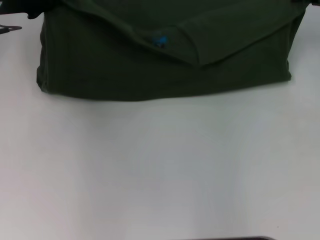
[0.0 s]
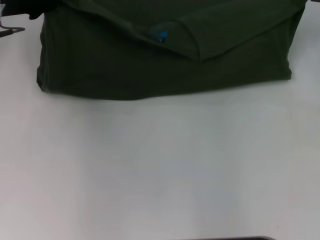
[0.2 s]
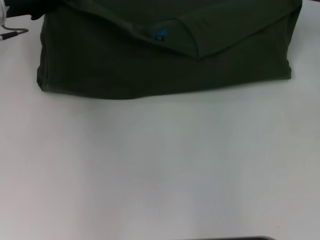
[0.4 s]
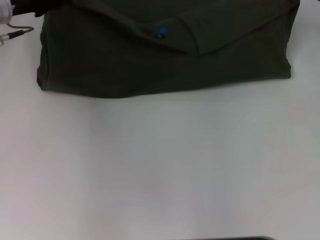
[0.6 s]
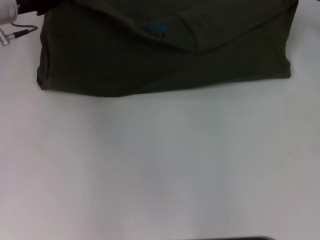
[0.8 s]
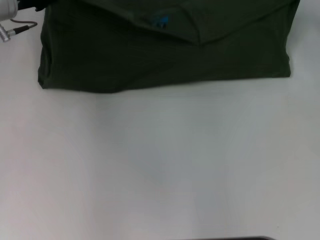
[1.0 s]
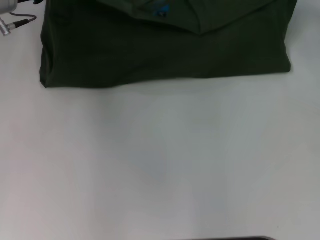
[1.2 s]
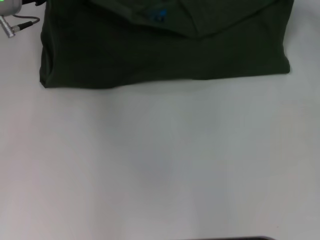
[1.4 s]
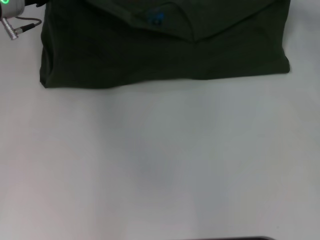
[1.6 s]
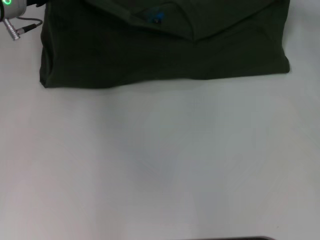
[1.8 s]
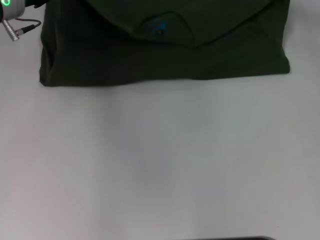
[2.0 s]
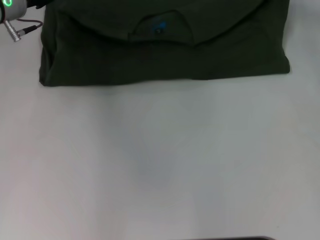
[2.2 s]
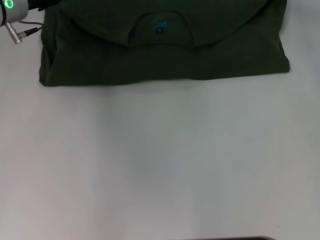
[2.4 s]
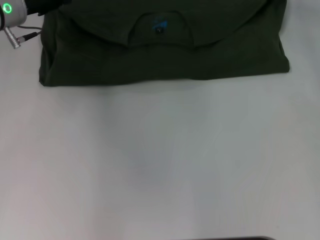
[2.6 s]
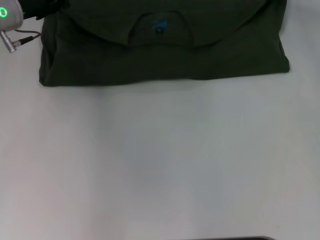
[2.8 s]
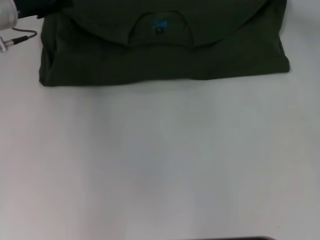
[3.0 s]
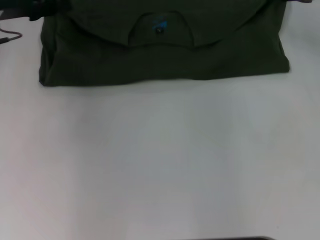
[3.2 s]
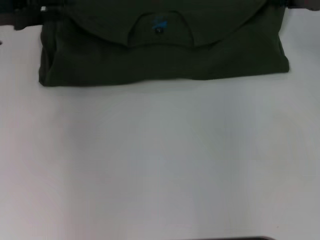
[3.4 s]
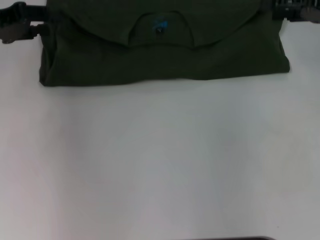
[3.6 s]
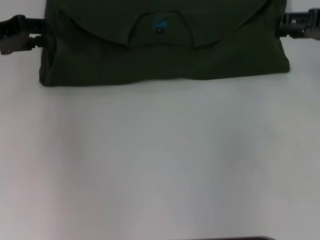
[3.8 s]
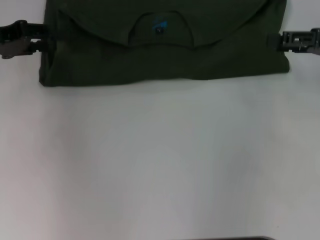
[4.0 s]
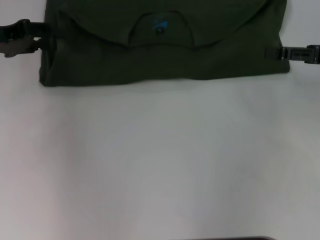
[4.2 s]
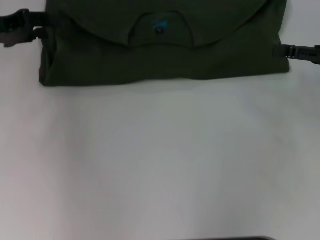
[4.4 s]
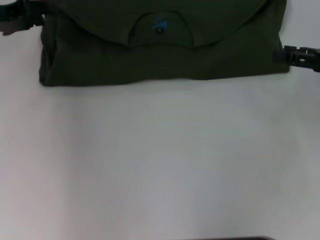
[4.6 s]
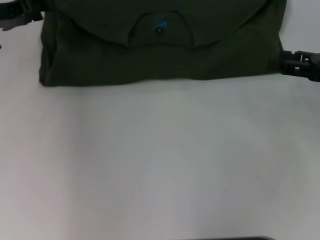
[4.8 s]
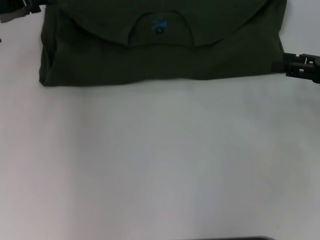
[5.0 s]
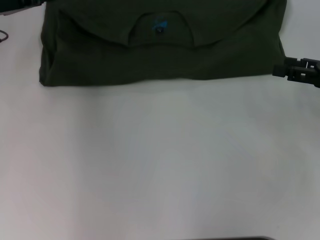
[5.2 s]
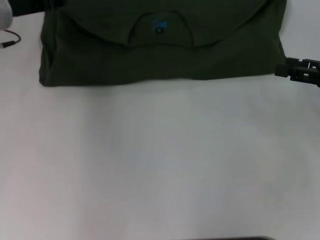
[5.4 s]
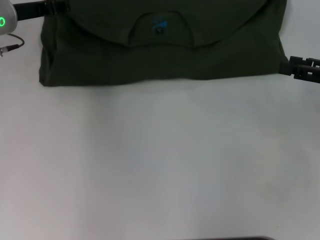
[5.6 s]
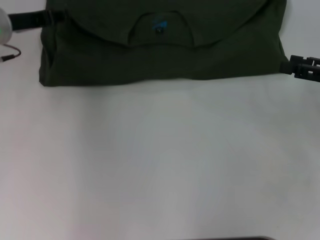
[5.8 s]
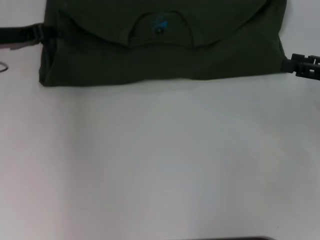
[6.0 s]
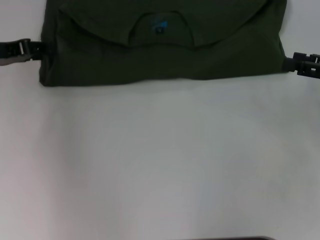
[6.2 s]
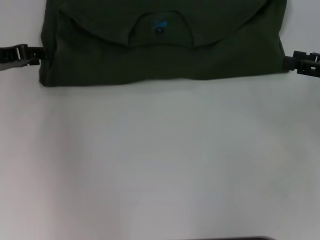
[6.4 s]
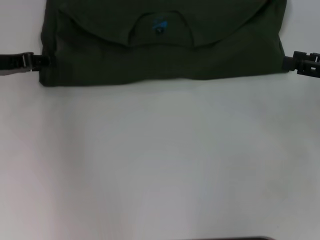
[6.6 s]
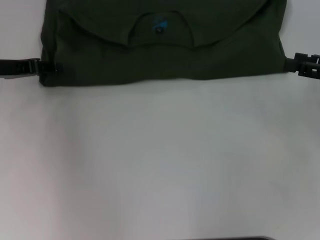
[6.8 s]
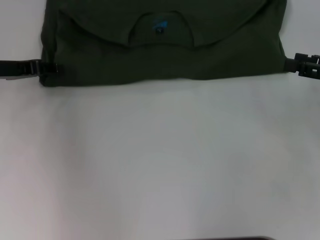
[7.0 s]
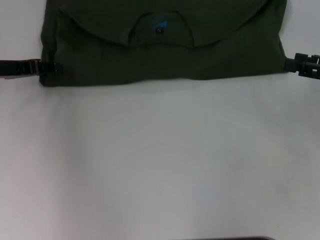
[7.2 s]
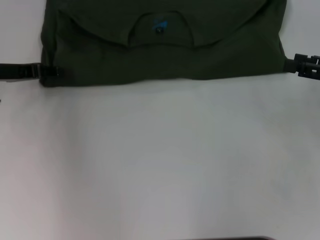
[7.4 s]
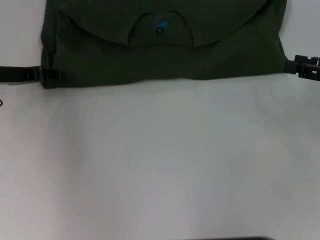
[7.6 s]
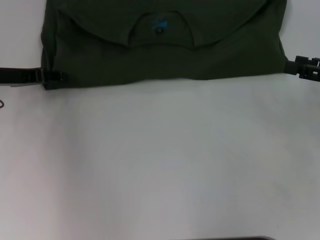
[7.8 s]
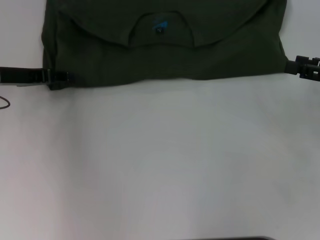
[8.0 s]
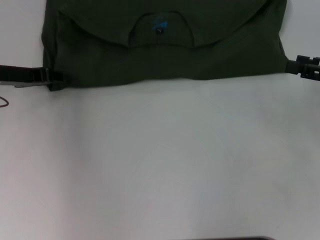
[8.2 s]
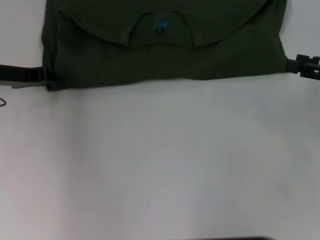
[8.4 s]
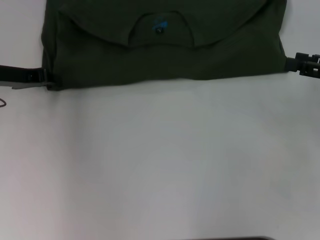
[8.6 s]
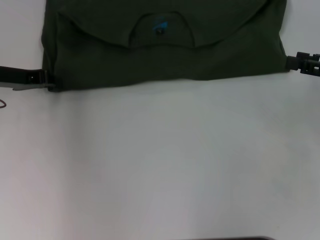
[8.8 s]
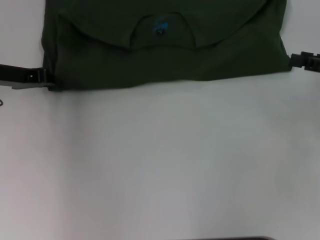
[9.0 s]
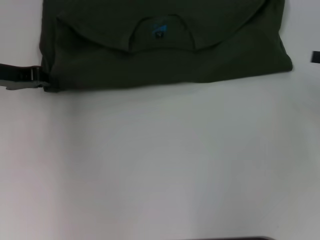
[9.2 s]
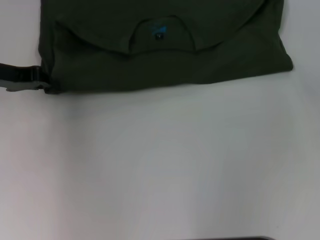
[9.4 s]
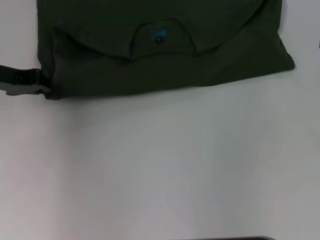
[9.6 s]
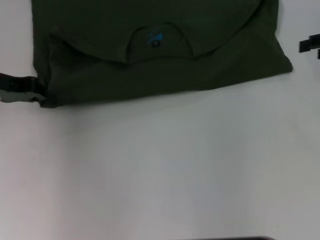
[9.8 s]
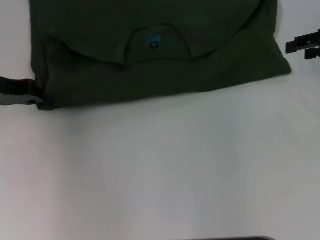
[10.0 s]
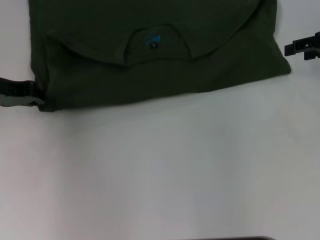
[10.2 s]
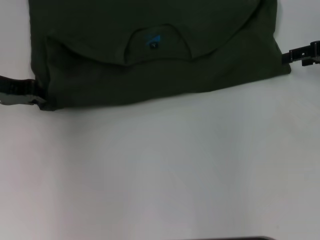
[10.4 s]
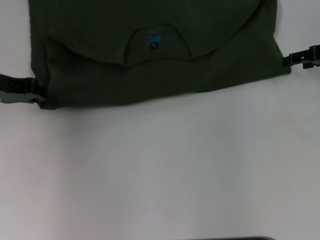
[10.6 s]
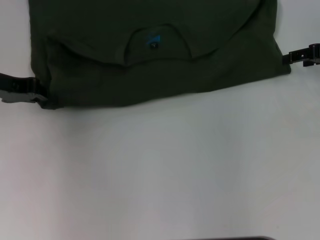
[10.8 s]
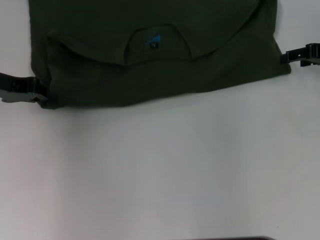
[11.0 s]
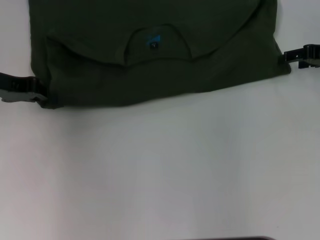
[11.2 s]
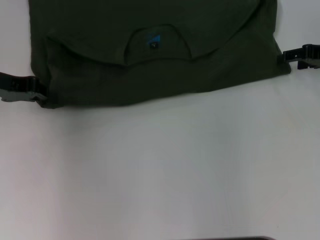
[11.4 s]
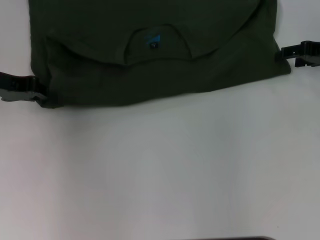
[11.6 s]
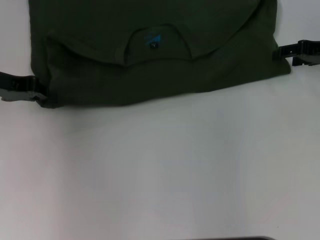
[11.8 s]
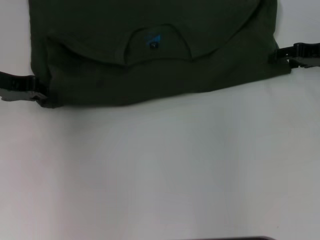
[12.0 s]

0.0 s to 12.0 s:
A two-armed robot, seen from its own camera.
Step, 0.0 to 3.2 s: Fold the clothes with your left hand.
Step, 0.0 to 3.2 s: Fold the clothes with your right hand.
0.0 to 1.6 s: The right gripper goes some 5 cm forward.
1.6 to 3.0 s: The left gripper opens its fingers.
3.0 to 4.4 s: The right gripper is displaced backward by some 15 cm. Meanwhile the left gripper moves to the left, approximately 5 cm.
6.0 to 7.6 s: The grippers make only small movements.
7.6 to 9.0 s: The left gripper closes its fingers.
9.0 to 10.4 s: The right gripper moves forward, roughly 10 cm.
10.4 to 12.0 s: The grippers stay close to where they were, moving slightly.

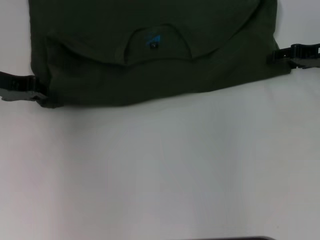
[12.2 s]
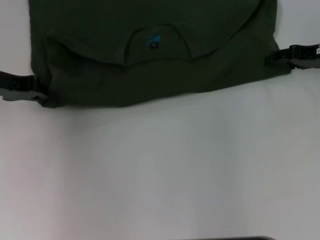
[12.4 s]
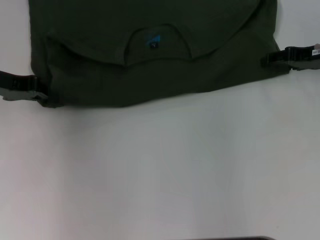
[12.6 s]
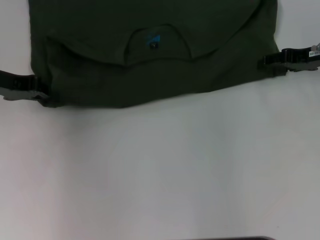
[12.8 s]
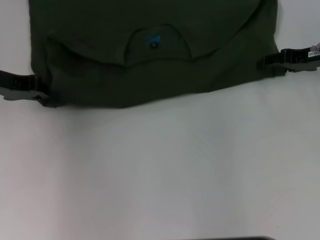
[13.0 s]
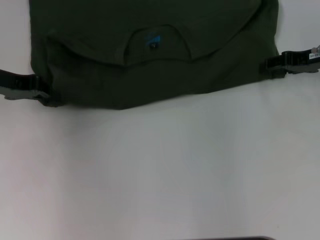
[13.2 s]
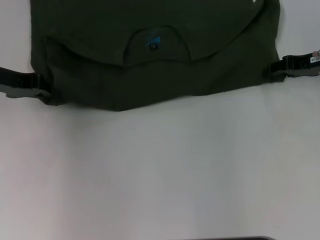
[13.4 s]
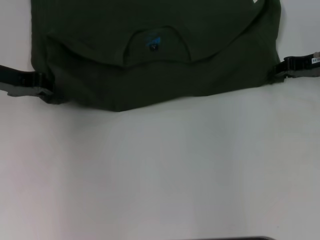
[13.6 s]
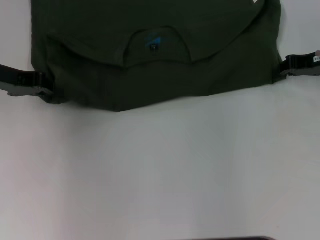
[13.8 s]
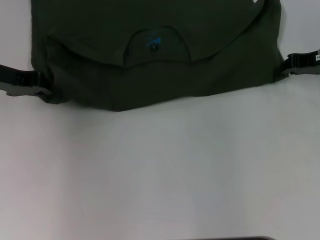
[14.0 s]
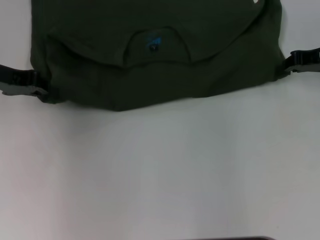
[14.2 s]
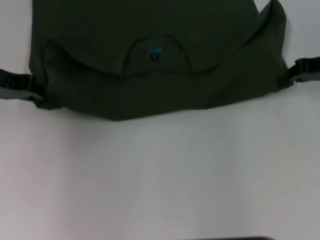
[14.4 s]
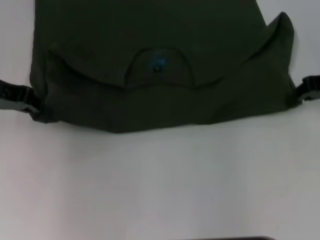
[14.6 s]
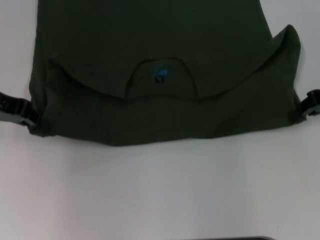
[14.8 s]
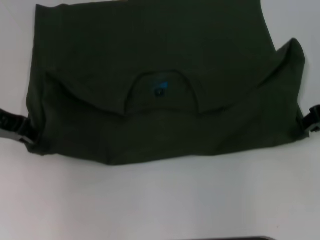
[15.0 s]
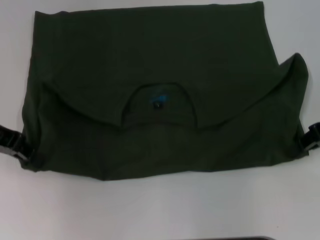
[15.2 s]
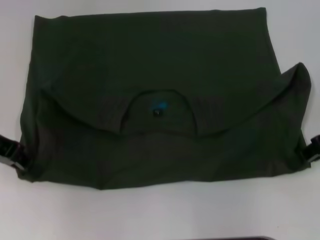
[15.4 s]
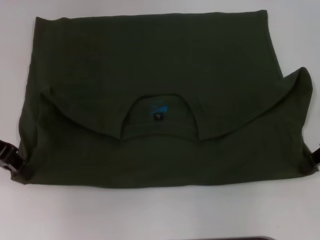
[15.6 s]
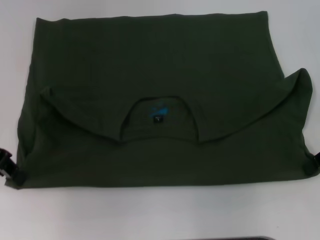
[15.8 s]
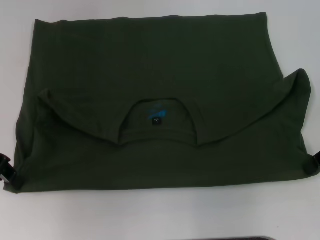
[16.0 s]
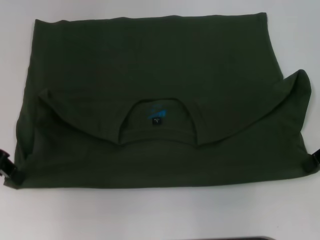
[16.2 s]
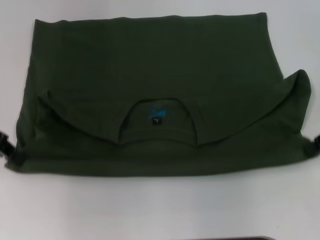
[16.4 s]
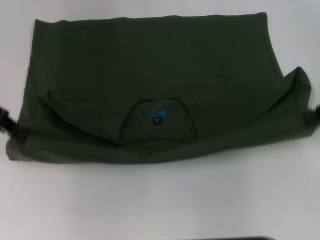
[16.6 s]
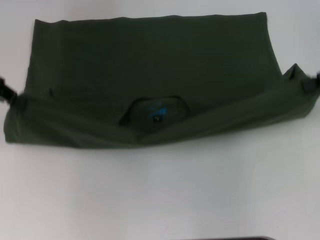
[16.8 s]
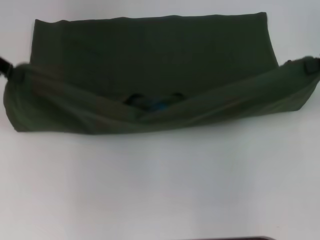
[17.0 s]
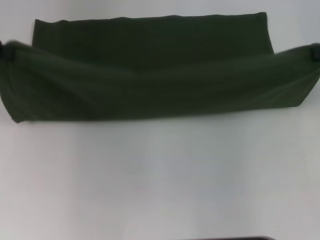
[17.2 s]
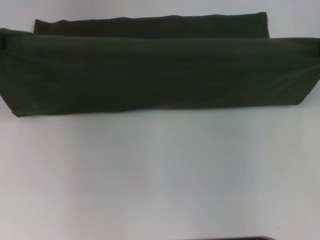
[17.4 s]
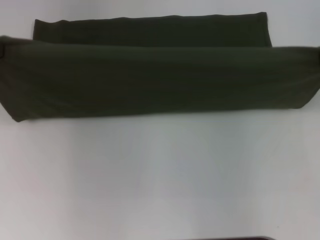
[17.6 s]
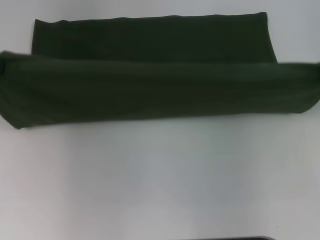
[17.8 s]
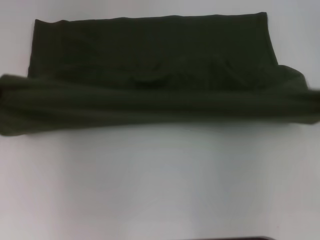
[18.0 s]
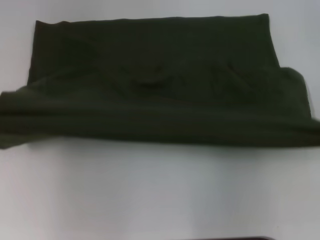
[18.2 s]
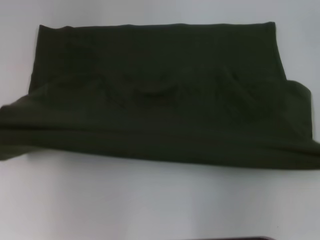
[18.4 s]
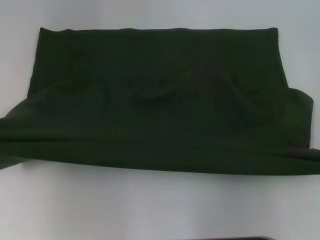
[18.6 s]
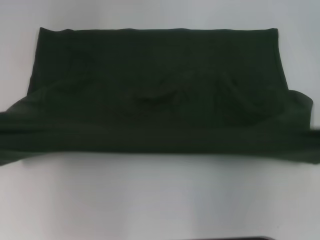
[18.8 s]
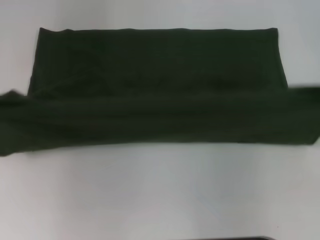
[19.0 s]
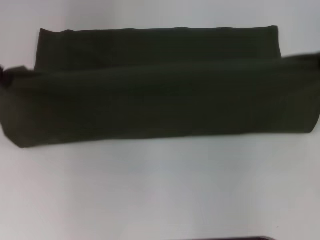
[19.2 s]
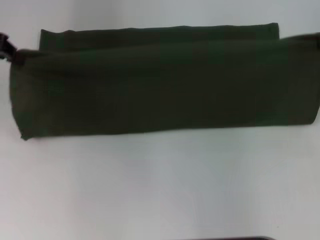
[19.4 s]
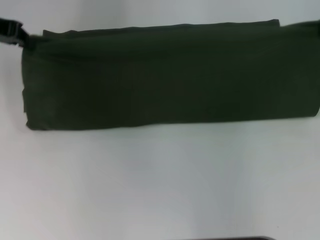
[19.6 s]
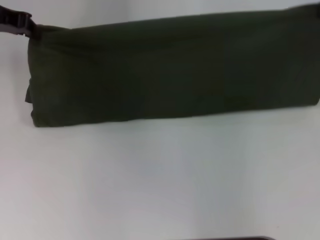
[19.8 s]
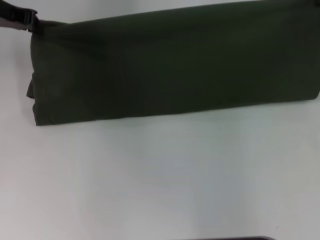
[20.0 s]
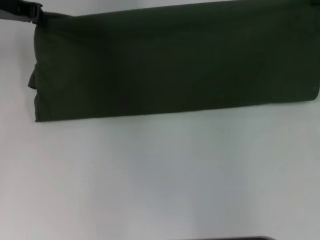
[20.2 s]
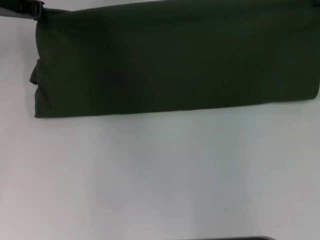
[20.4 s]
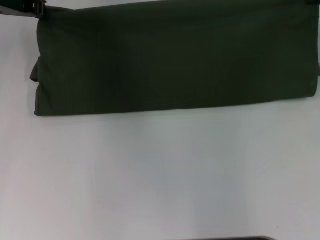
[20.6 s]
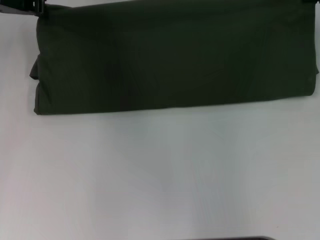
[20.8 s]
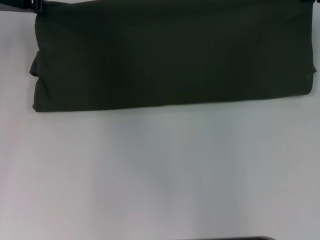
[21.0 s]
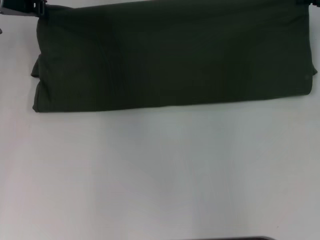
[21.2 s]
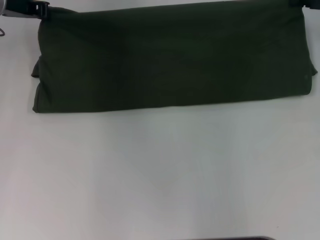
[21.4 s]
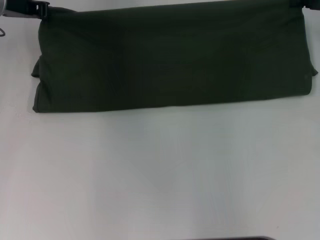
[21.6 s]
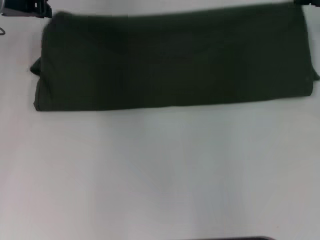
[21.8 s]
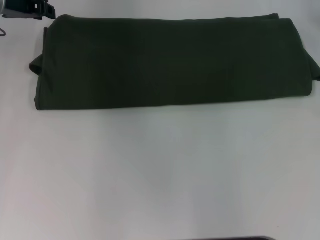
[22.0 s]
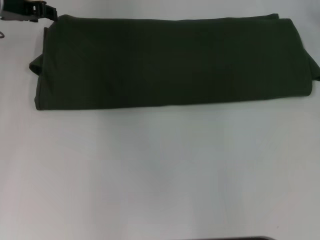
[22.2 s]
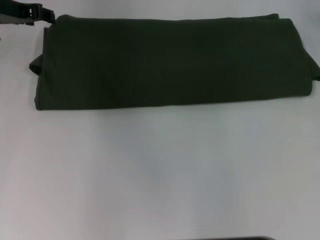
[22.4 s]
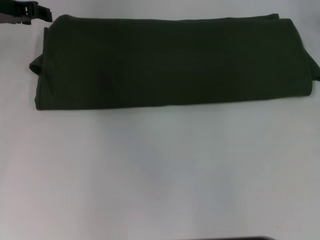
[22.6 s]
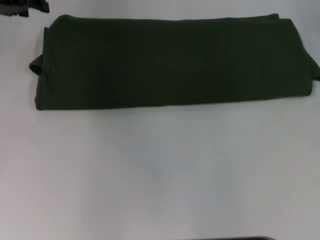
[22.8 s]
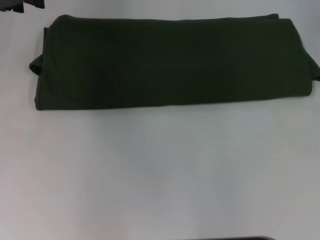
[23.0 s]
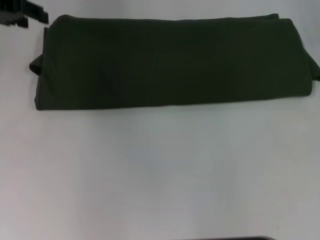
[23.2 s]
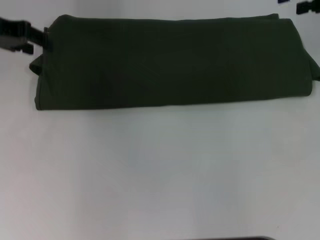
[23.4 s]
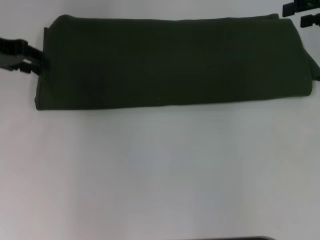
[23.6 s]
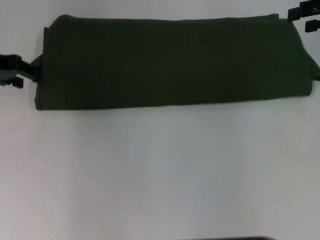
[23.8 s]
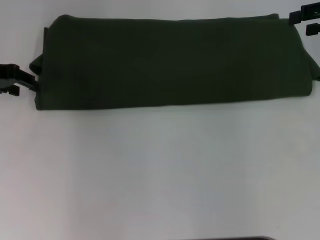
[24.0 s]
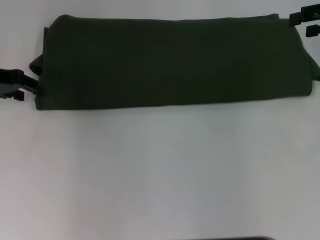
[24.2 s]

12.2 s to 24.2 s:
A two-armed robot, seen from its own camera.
Step, 12.2 to 15.8 s: Pull the clothes with your left hand.
Step, 12.2 to 15.8 s: Pull the clothes with your right hand.
Step, 16.0 to 21.8 s: Fold the clothes with your right hand.
12.2 to 13.8 s: The right gripper closes up.
13.8 to 15.2 s: The right gripper goes about 5 cm backward.
15.2 to 16.6 s: The right gripper moves about 5 cm.
16.6 to 18.2 s: The left gripper ends up roughly 5 cm from where it was.
18.2 to 19.8 s: The left gripper shifts approximately 10 cm forward and to the right, while the right gripper heads forward, covering some 10 cm.
19.8 to 21.2 s: The right gripper ends up roughly 5 cm from where it was. Meanwhile the left gripper shifts by roughly 5 cm.
21.2 to 22.6 s: The left gripper opens. The right gripper opens up.
22.6 to 24.2 s: Both grippers move backward, about 5 cm.
